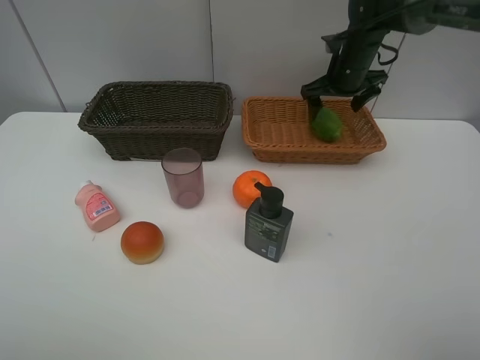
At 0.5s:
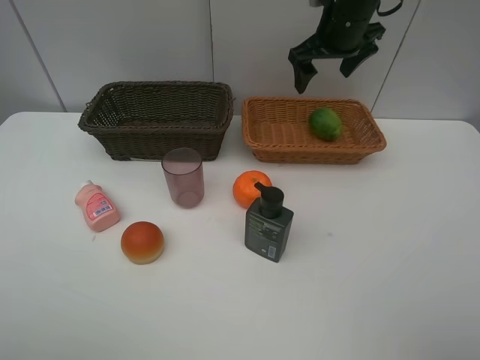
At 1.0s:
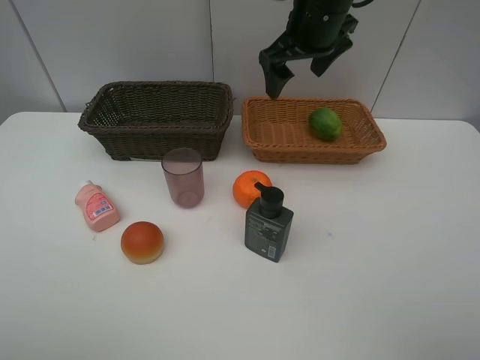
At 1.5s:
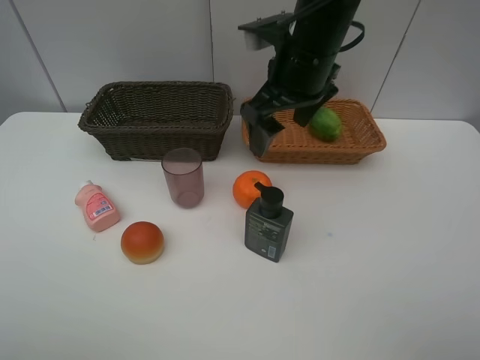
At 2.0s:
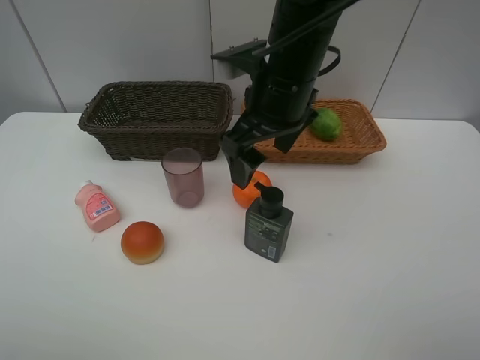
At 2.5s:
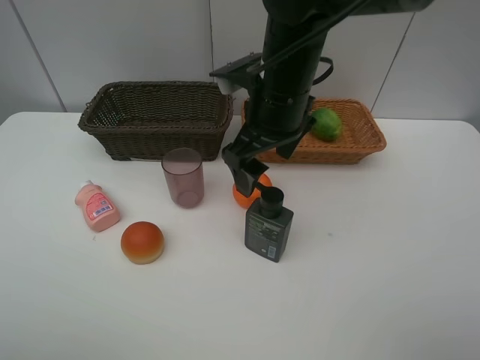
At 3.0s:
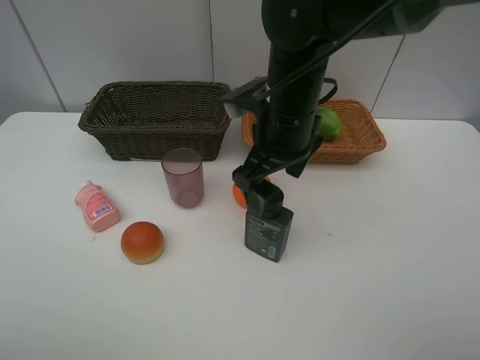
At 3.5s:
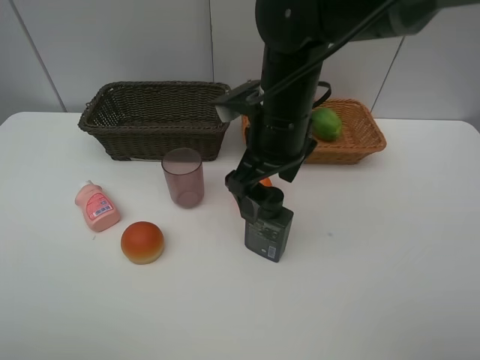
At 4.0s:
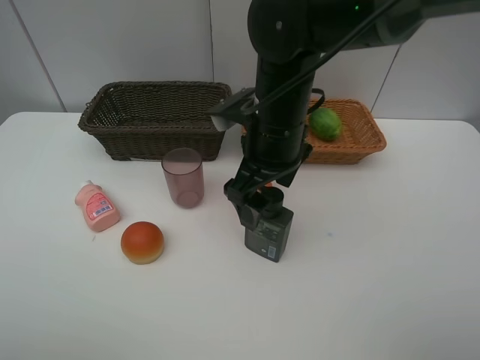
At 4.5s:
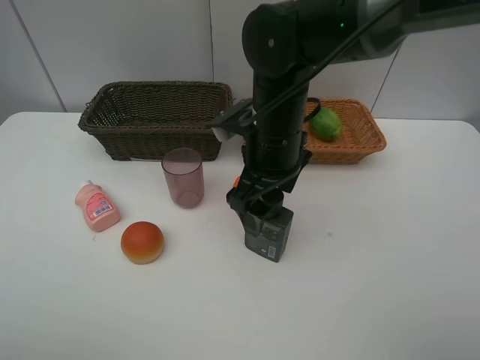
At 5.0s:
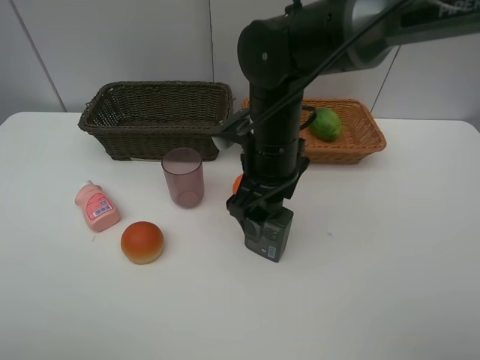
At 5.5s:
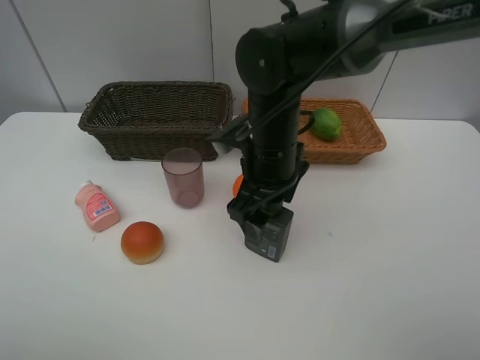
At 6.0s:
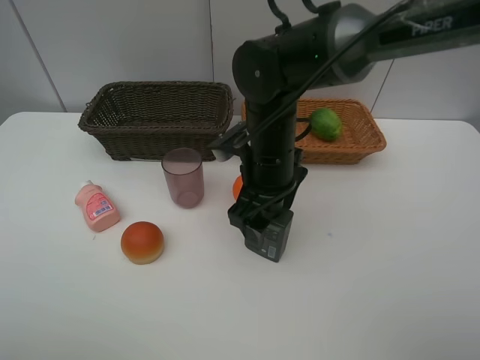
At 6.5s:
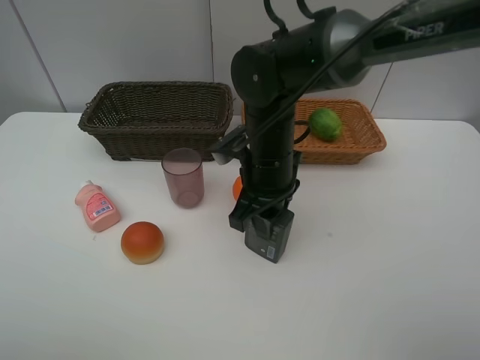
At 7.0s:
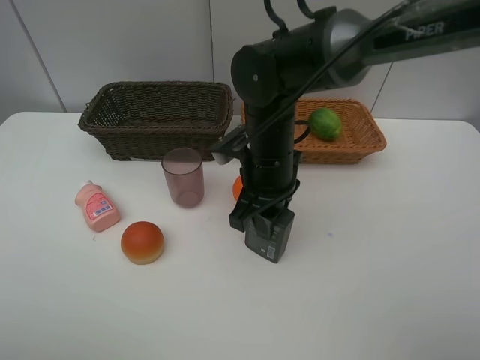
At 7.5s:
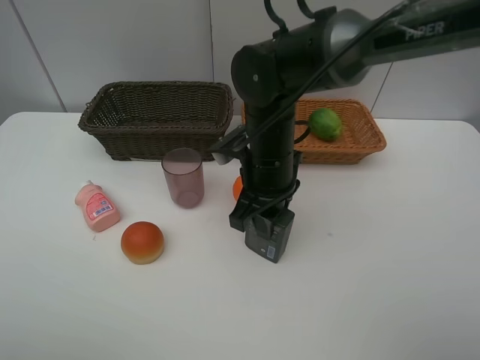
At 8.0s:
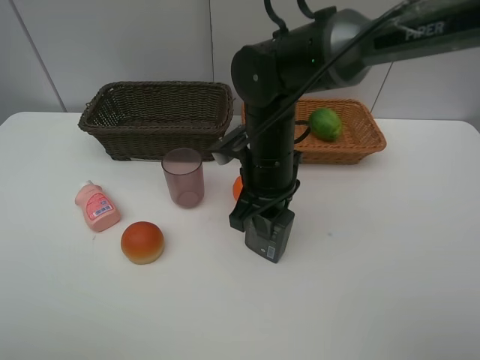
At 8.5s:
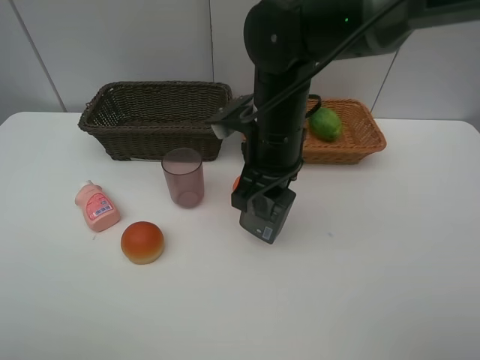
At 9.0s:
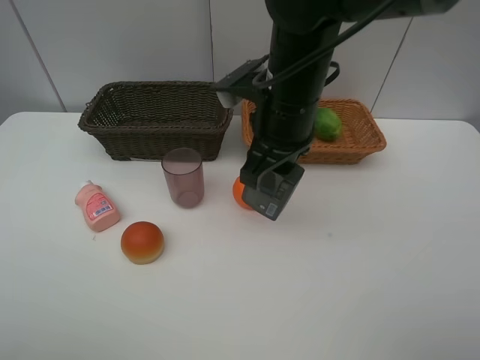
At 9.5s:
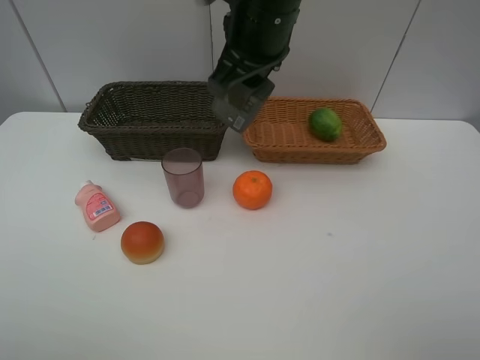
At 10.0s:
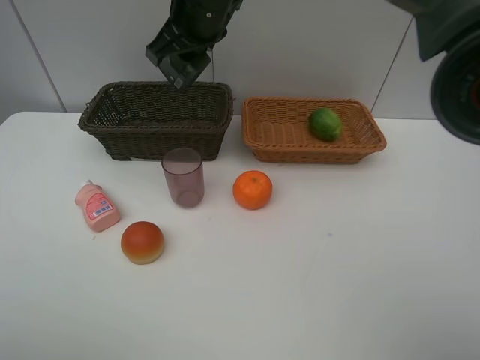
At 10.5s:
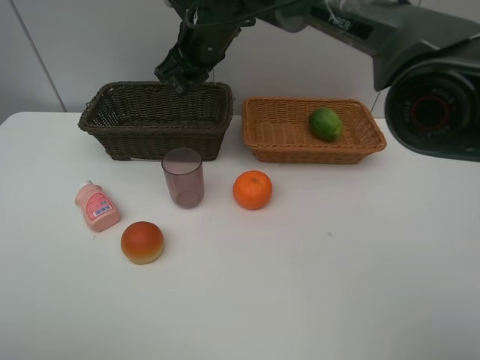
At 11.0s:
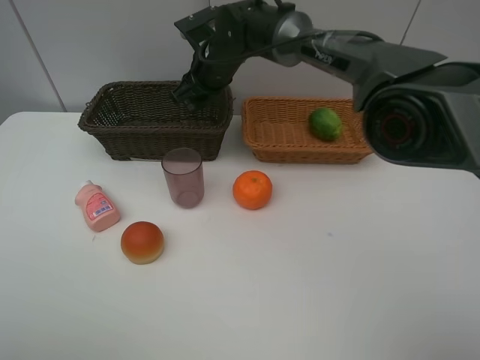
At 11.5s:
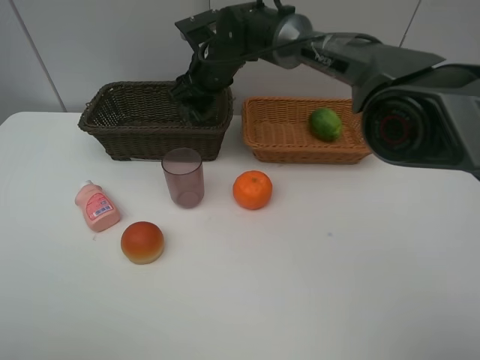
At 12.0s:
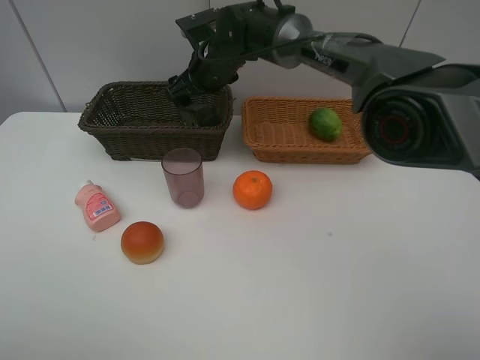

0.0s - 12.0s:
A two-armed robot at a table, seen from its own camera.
Task of the whole recording: place multiple objects separately in different baskets.
0.0s - 2.0s: The right gripper goes about 25 cm backward and to the left.
2.0s - 4.0s: There are only small adjustments of the grippers.
4.0s - 6.0s: The grippers stay close to where they were, moving slightly.
6.0s - 8.0s: The right gripper closes its fingers.
8.0s - 10.0s: The right gripper goes some 20 cm upward, forward and to the left.
10.0s - 12.0s: The right gripper travels downward and forward by roughly 15 cm, and opens.

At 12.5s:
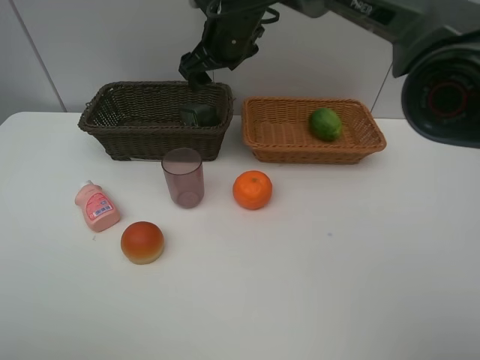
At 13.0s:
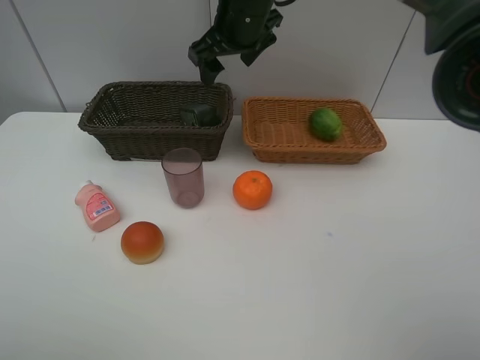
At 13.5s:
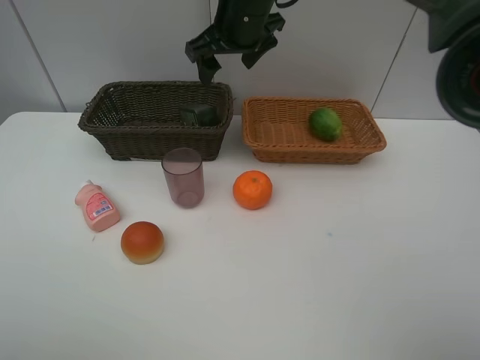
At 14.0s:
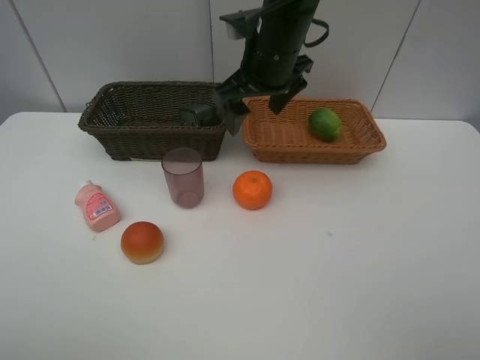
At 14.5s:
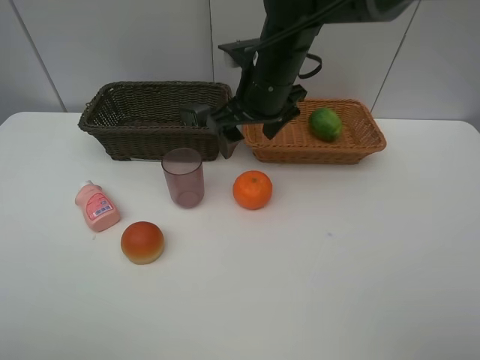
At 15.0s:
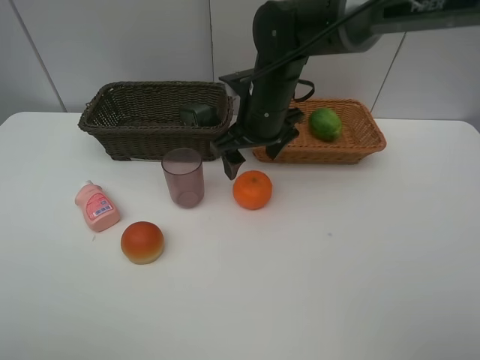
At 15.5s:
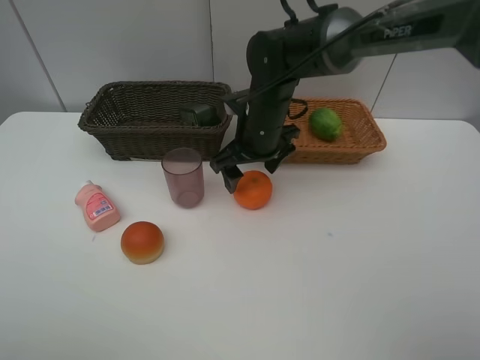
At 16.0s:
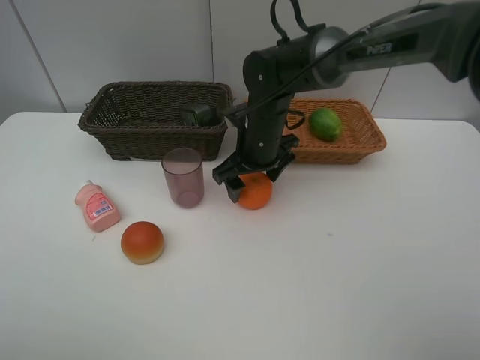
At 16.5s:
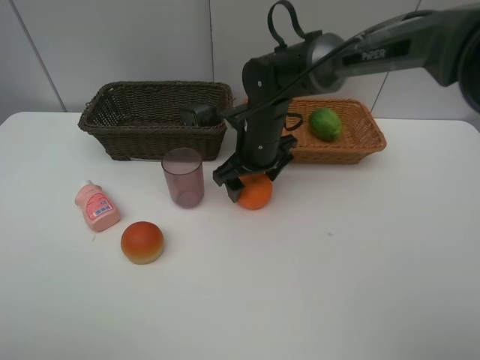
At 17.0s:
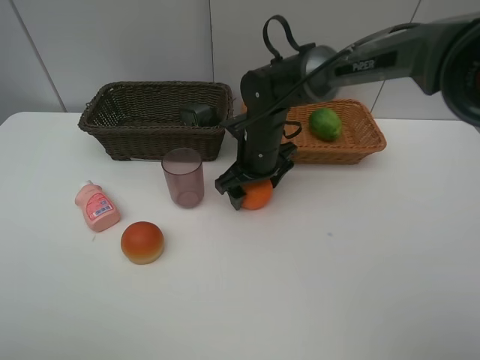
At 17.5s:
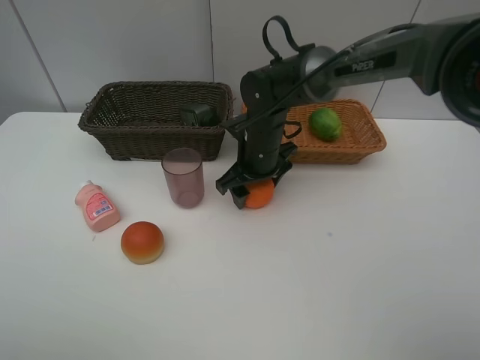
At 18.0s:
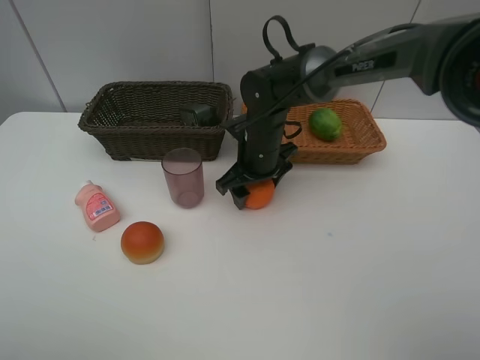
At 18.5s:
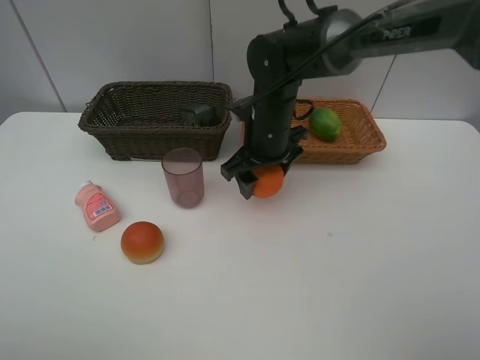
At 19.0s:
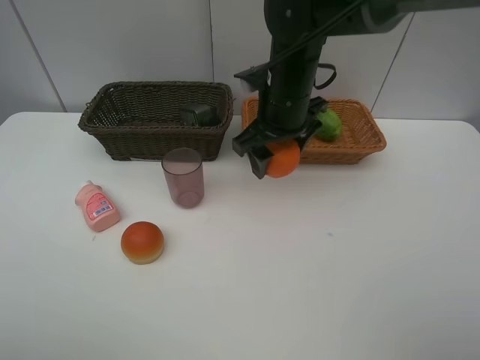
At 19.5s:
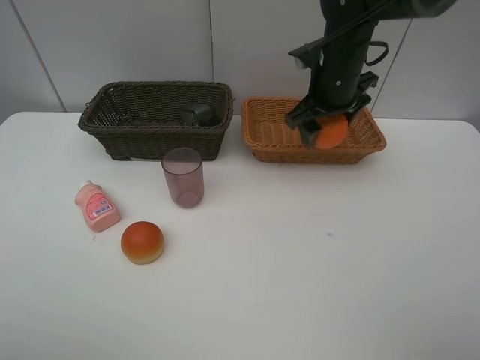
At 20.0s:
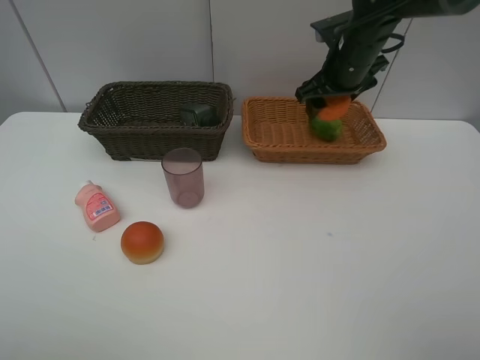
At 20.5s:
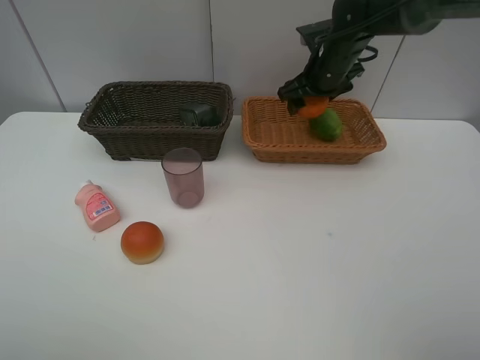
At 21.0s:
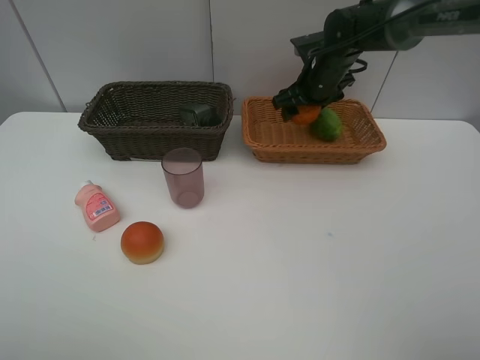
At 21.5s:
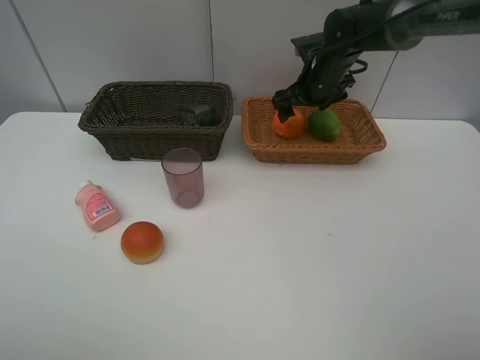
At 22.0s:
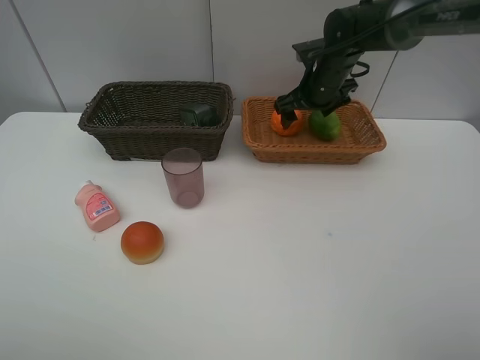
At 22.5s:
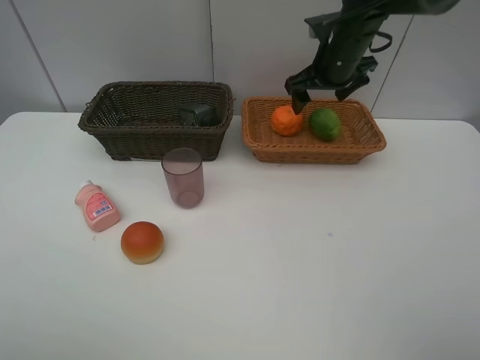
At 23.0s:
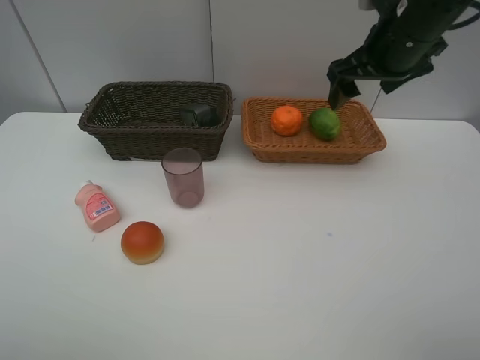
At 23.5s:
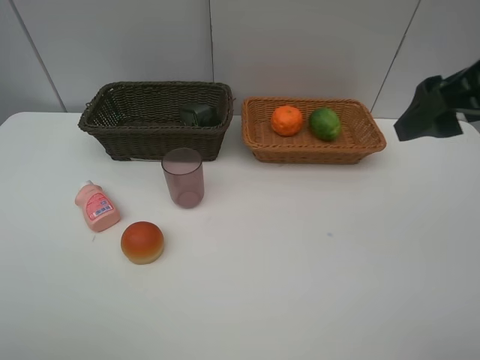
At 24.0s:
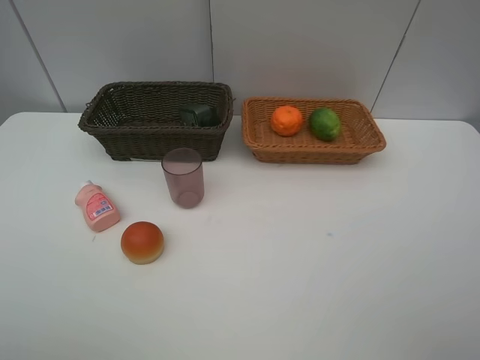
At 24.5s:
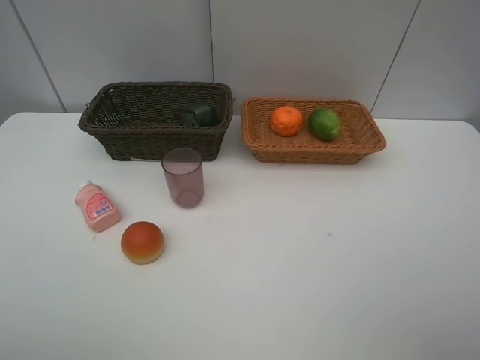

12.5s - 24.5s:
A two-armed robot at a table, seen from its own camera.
Task of the whole recording: place multiple objects separately in different baskets.
12.5s - 14.5s: The right gripper goes approximately 10 cm backward.
14.5s - 16.5s: The right gripper heads downward, covering approximately 10 cm.
16.5s - 18.5s: The grippers stay close to where they were, moving slightly.
18.5s - 20.5s: The right gripper moves forward and to the right, some 15 cm.
20.5s - 22.5s: The right gripper shifts by roughly 5 cm.
22.5s - 24.5s: The right gripper goes about 40 cm backward.

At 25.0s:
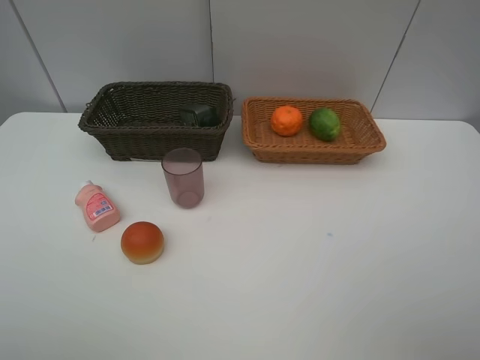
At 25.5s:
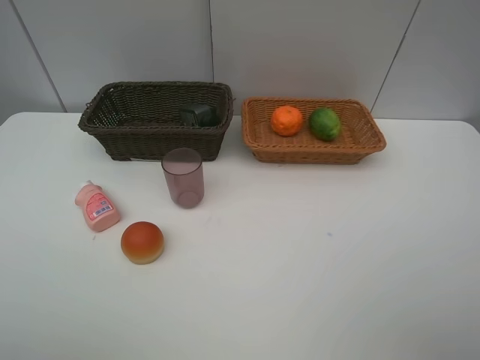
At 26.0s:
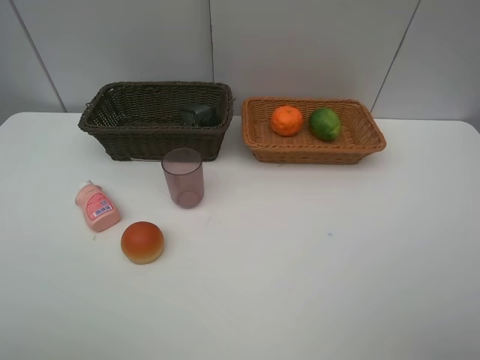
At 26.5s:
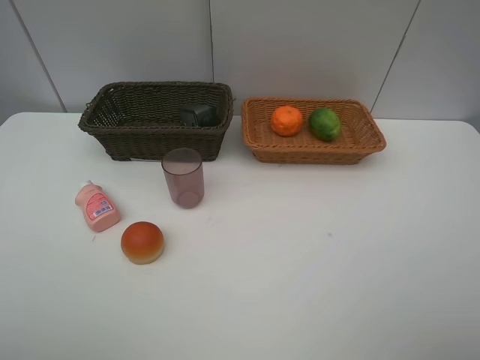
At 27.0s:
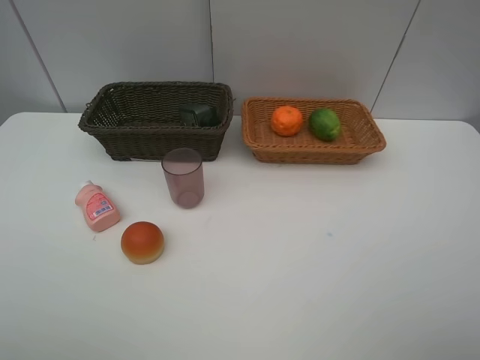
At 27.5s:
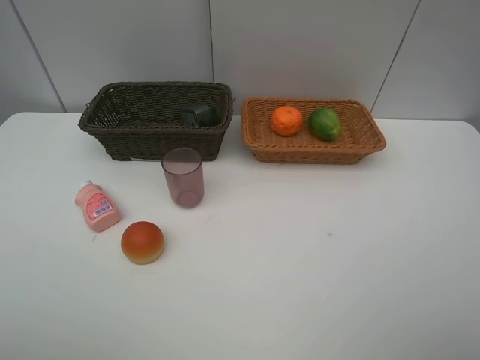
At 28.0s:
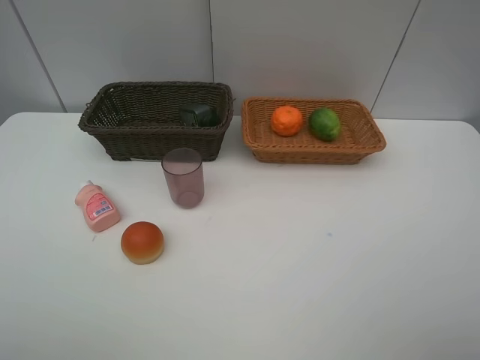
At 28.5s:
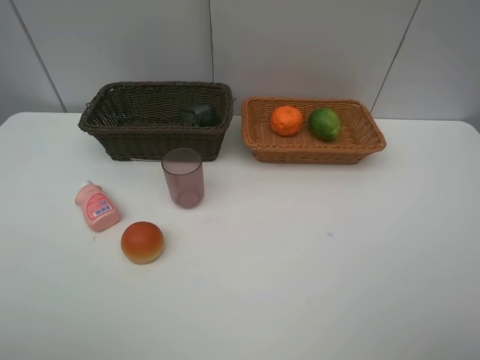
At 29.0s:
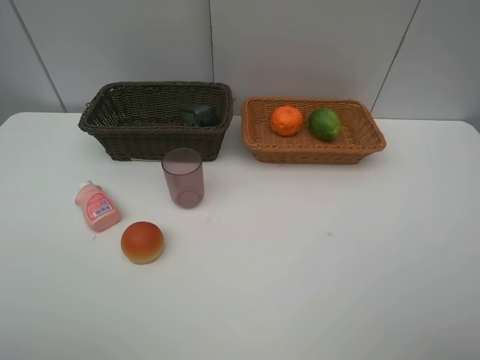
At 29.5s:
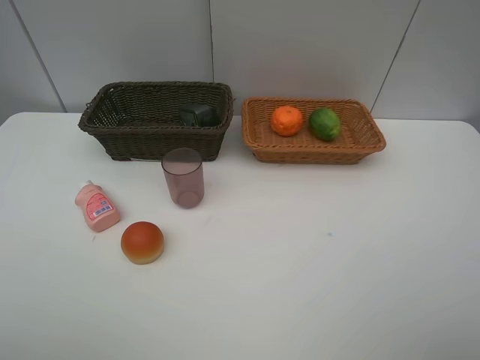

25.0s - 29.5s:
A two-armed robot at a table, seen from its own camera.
Task of the whole recording: place multiple objects separately in different baskets.
27.0s - 29.5s: Both grippers stay about where they are.
